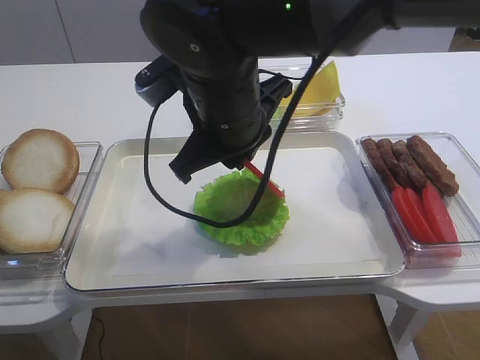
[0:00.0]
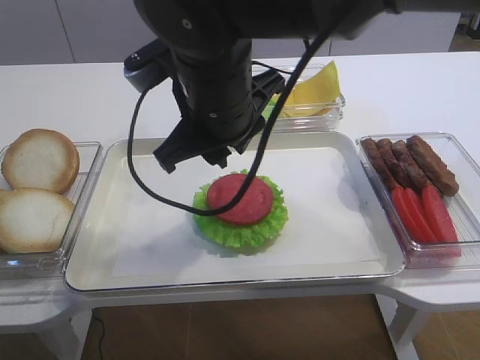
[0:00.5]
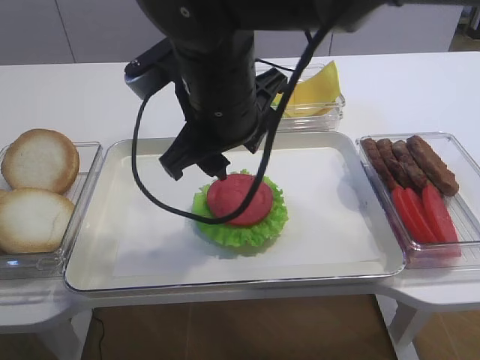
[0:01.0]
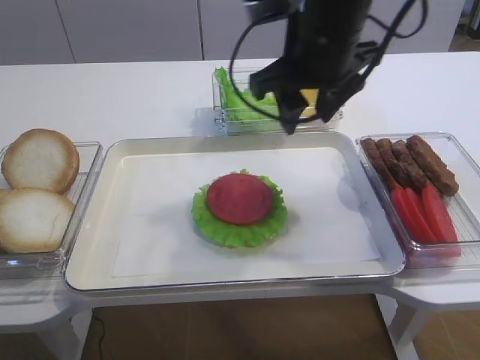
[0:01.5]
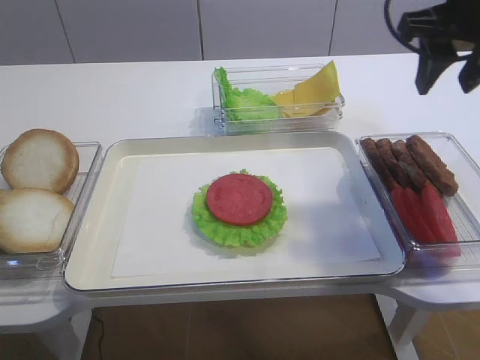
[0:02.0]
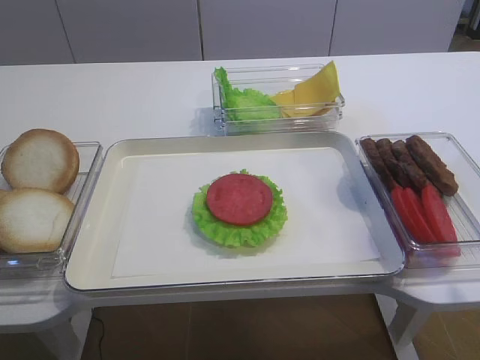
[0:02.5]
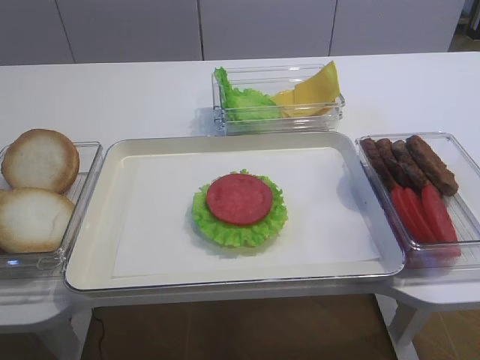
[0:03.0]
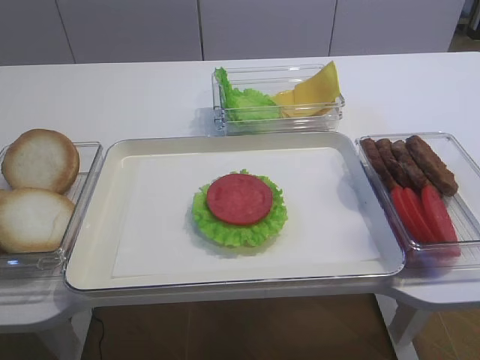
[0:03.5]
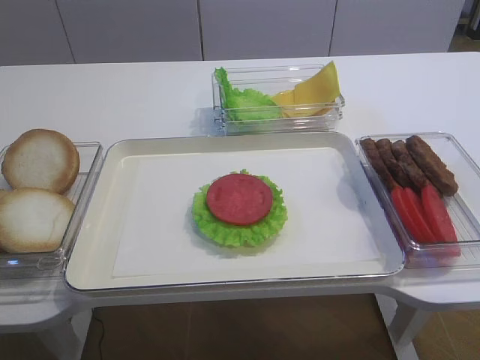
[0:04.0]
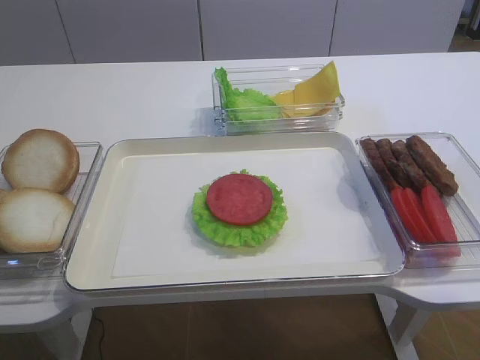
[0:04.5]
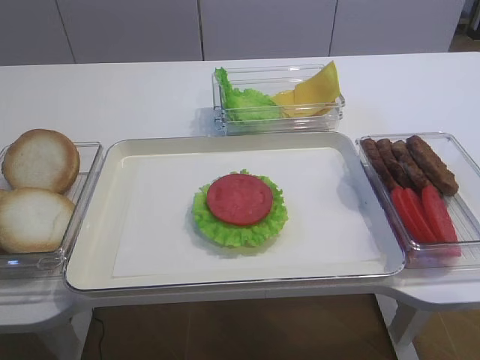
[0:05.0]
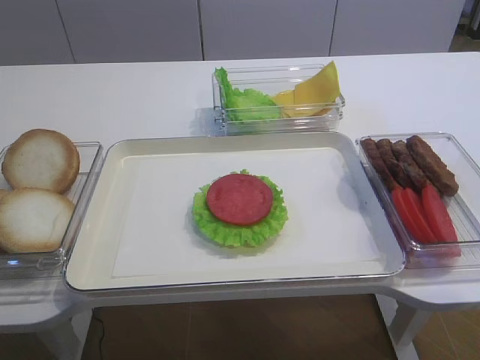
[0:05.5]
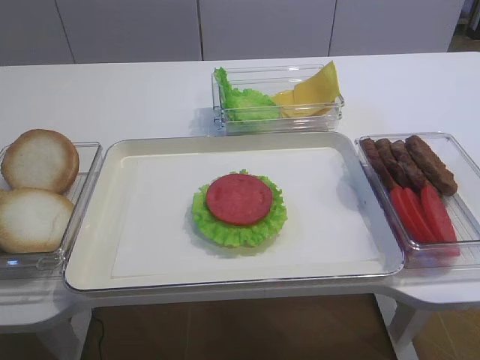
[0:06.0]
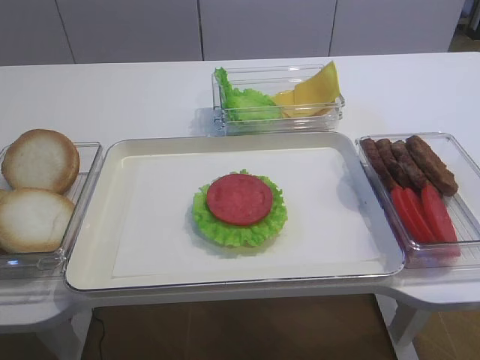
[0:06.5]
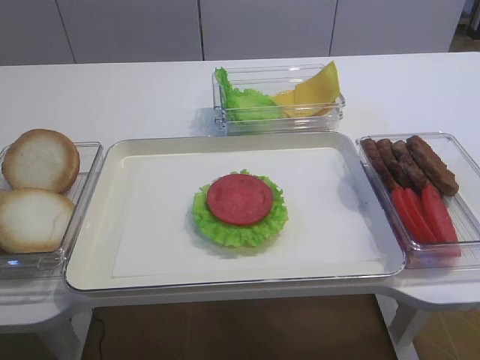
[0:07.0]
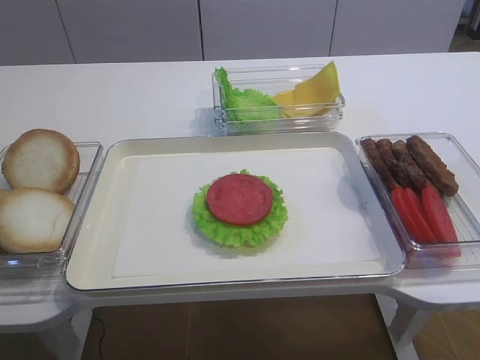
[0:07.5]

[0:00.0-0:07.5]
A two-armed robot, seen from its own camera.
0:00.0 to 0:02.0: The right gripper shifts some 25 cm to the right, and opens its fingers.
0:02.0 to 0:04.0: The right gripper heads backward, covering roughly 35 cm.

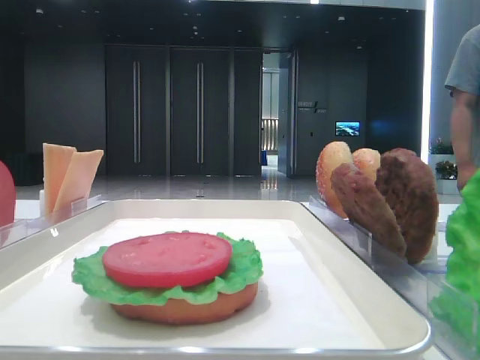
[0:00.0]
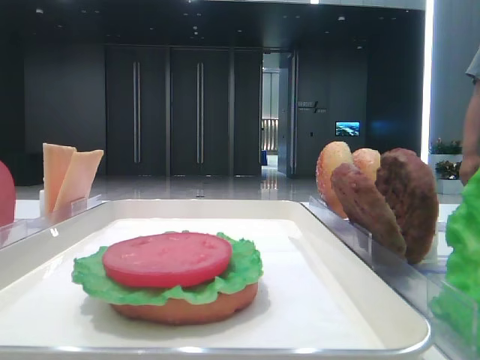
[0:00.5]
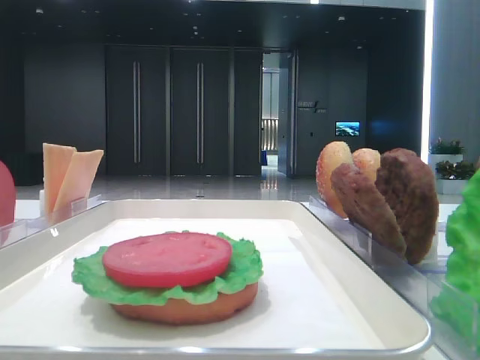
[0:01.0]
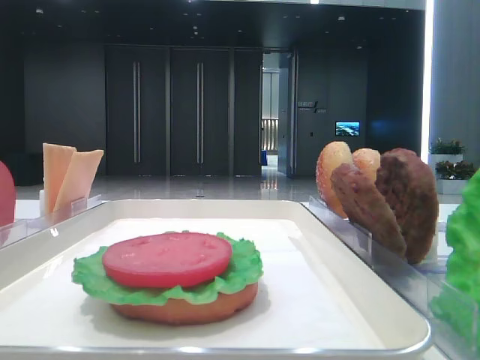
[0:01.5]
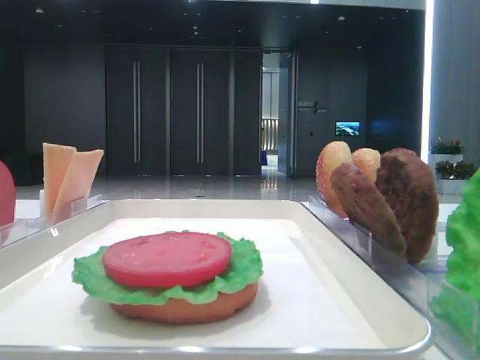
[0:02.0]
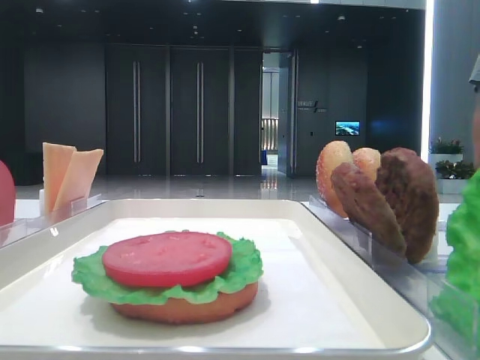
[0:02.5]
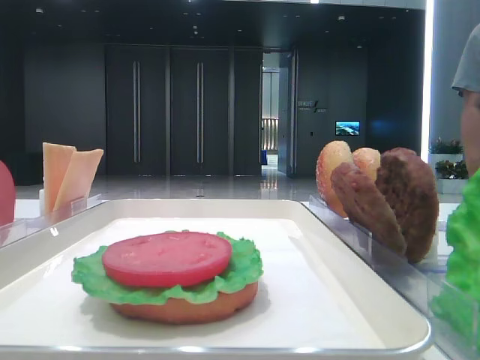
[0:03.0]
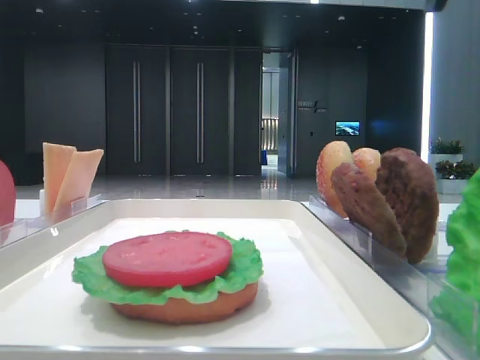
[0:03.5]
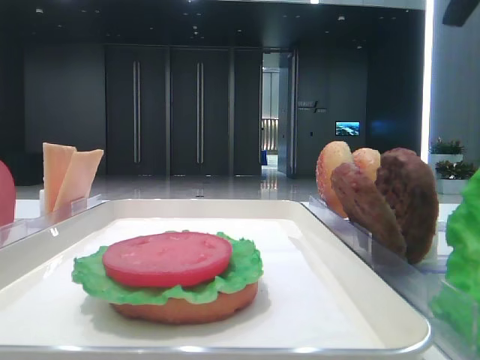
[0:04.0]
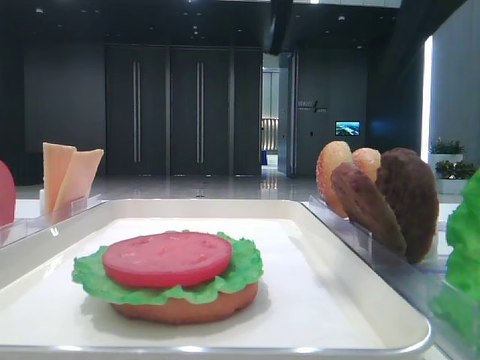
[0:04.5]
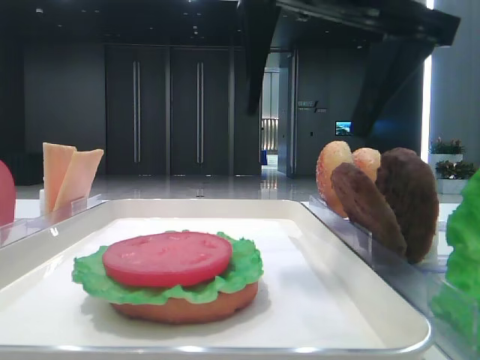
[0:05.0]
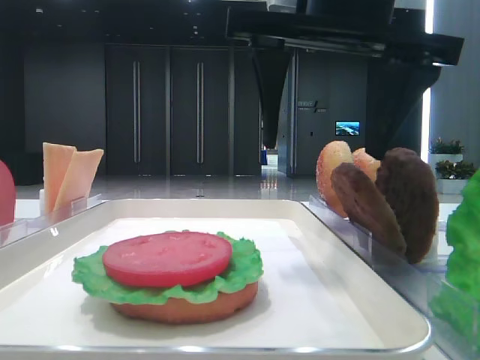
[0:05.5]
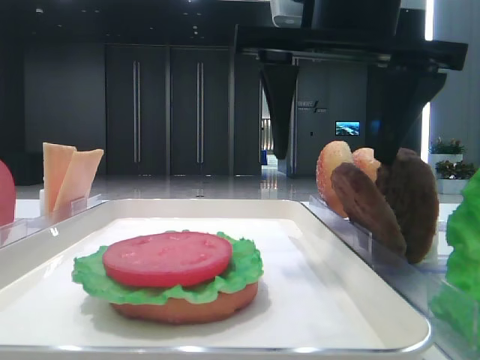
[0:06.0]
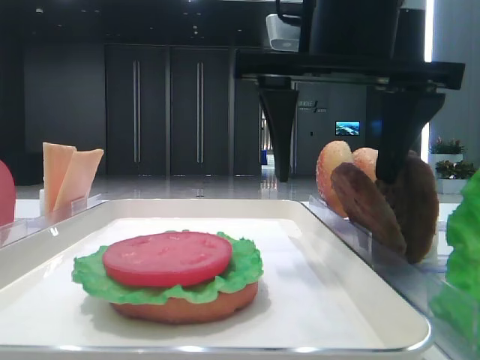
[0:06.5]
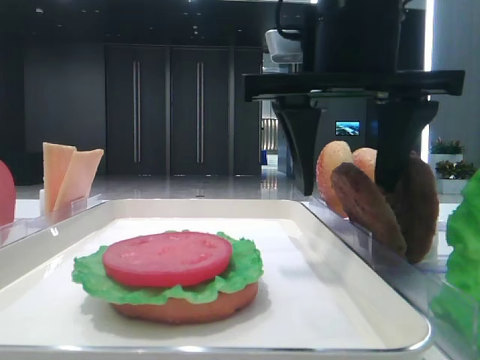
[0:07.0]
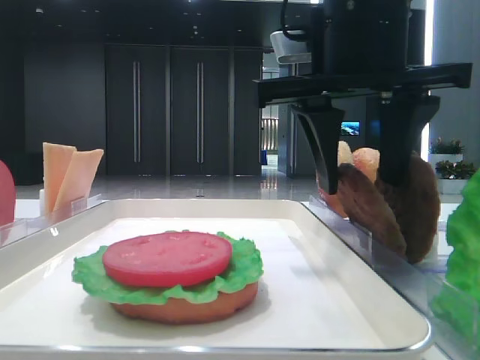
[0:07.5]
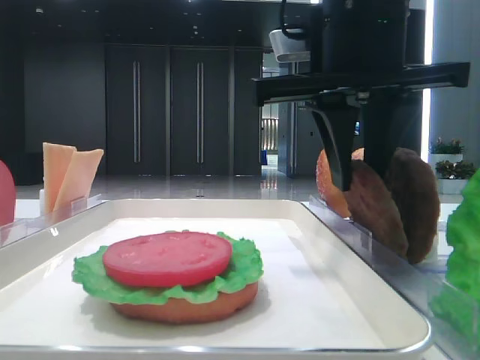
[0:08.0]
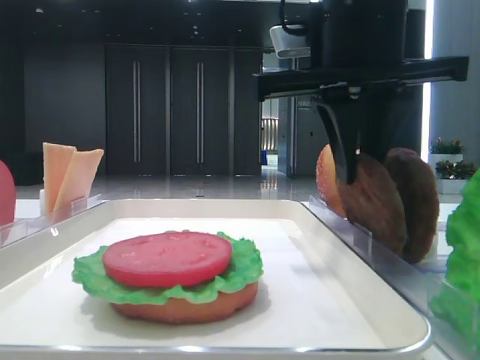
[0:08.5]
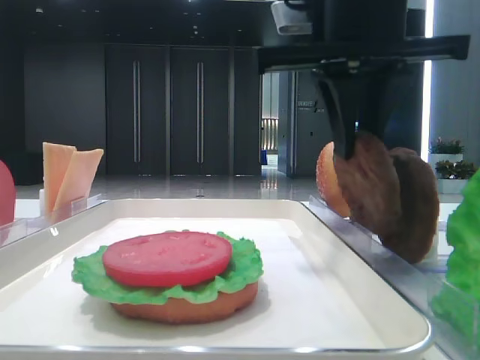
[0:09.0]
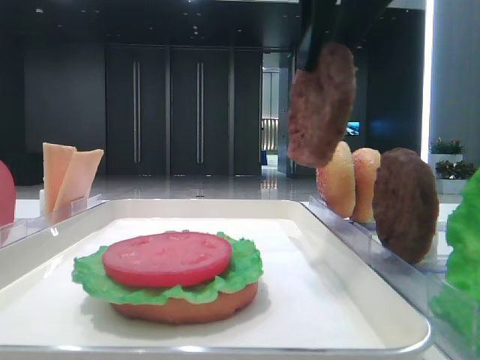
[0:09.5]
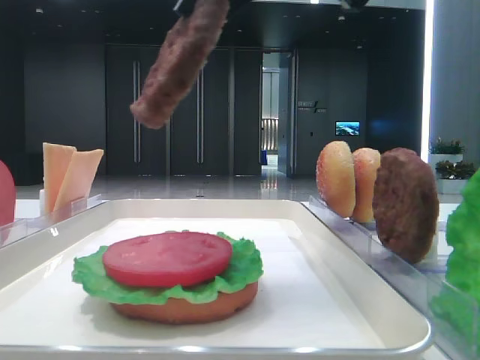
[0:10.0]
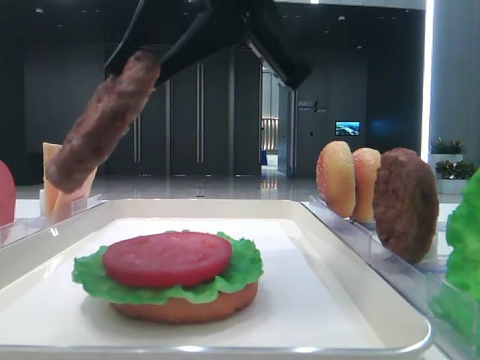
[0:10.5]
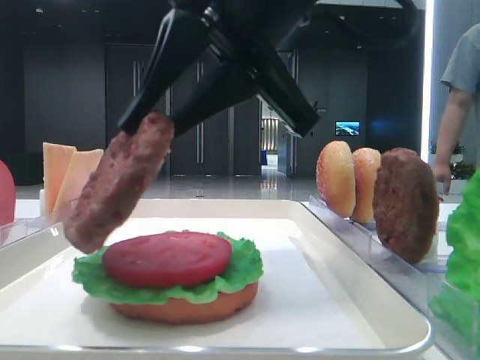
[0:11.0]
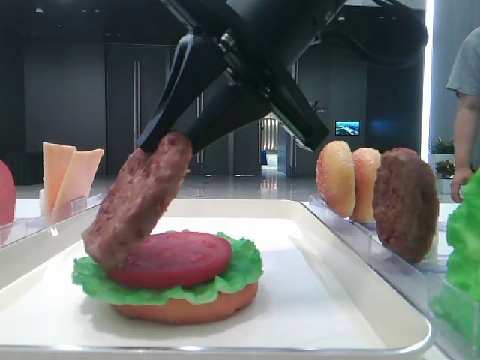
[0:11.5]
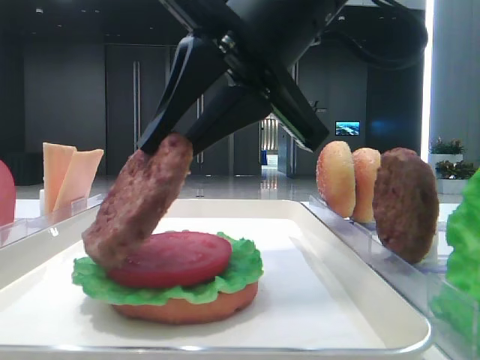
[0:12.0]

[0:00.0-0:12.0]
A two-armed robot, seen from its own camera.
Step, 0:00.0 to 0:08.0: Grab the patty with the right hand.
0:02.0 to 0:04.0: The right gripper heads to the left and forward, covering roughly 15 cm.
0:04.0 to 0:06.0: The right gripper travels downward and to the left by some 10 cm.
0:06.0 to 0:08.0: The right gripper closes.
0:08.0 to 0:10.0: The right gripper moves upward, approximately 10 cm.
0:10.0 to 0:12.0: The right gripper moves downward, some 10 cm.

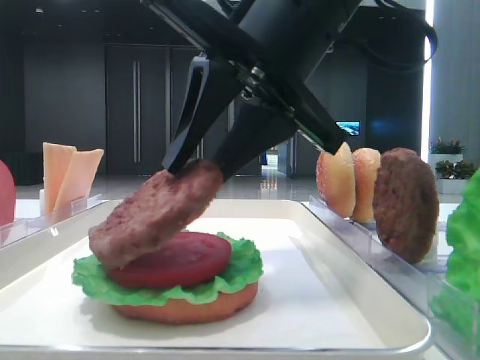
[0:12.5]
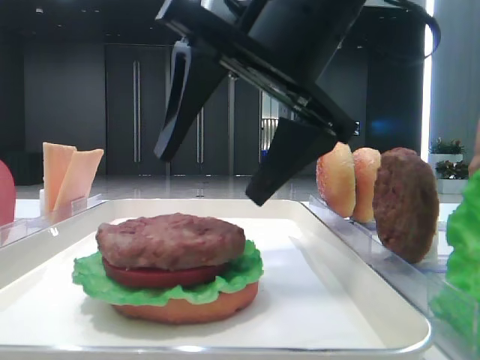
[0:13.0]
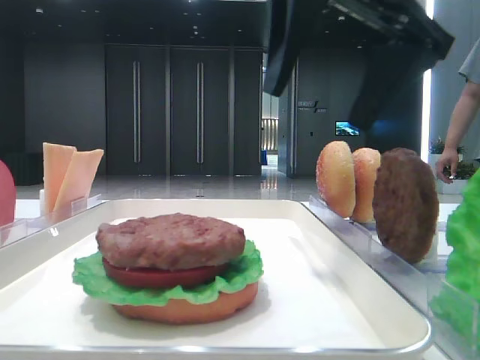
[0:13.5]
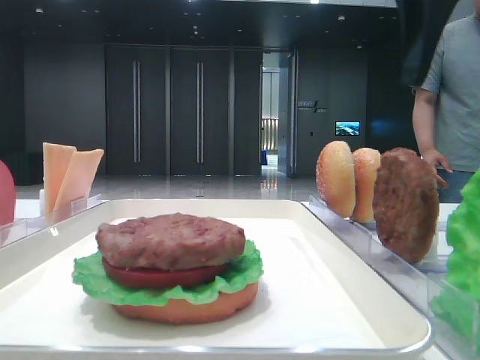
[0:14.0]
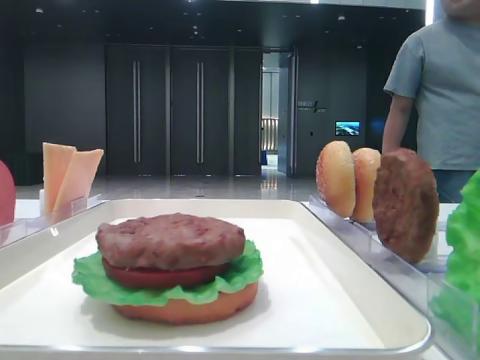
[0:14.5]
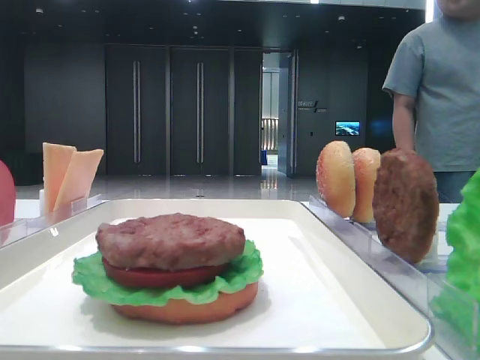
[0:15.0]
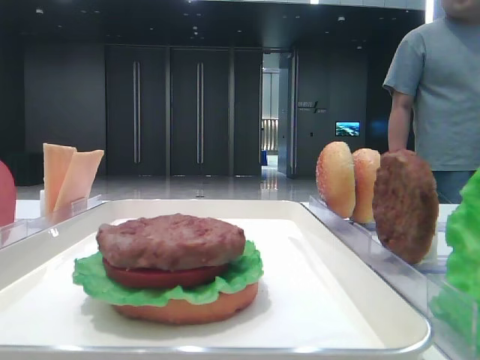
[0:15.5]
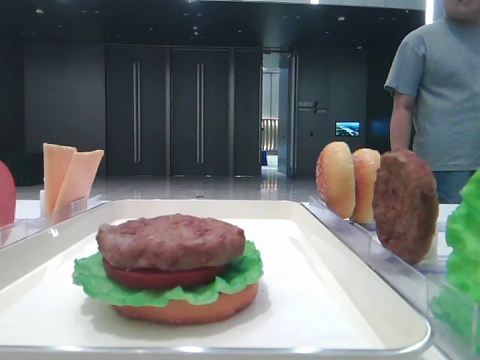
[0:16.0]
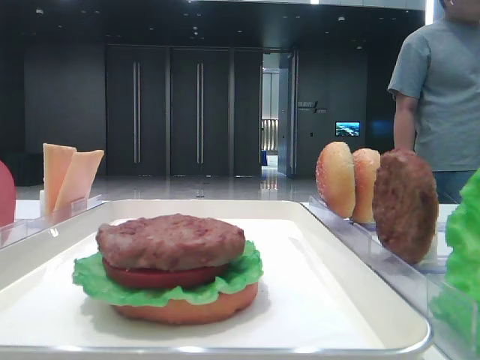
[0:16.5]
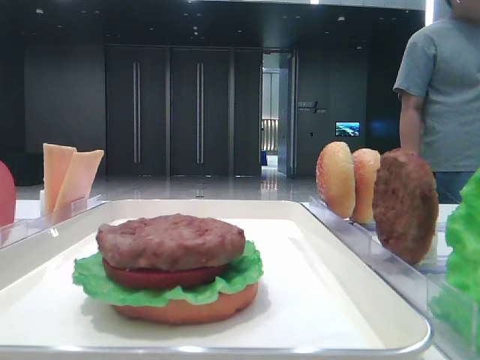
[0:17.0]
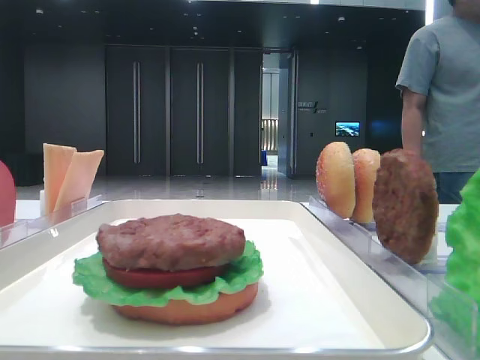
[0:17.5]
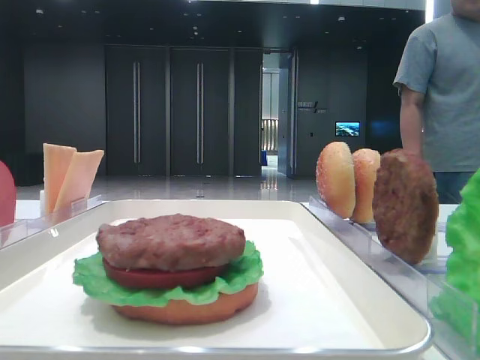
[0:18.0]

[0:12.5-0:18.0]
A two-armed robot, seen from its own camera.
0:12.5 to 0:14.5: The right gripper heads to the right, covering approximately 25 cm, and opens.
0:14.5 to 0:16.0: The right gripper moves backward, some 25 cm.
0:16.0 to 0:18.0: There are only small adjustments of the grippers.

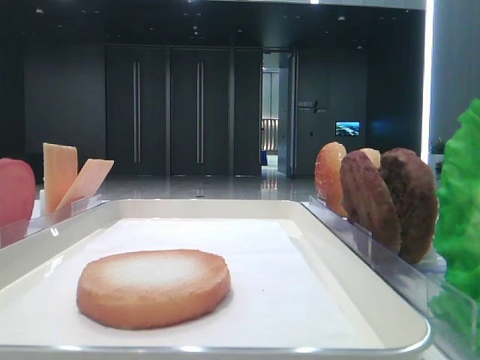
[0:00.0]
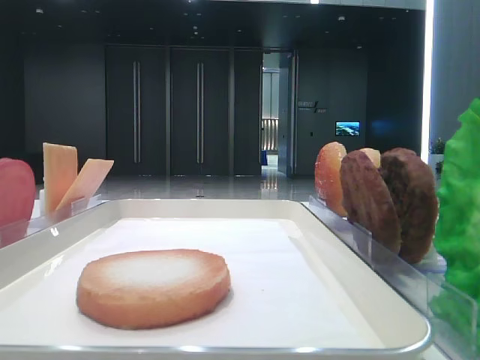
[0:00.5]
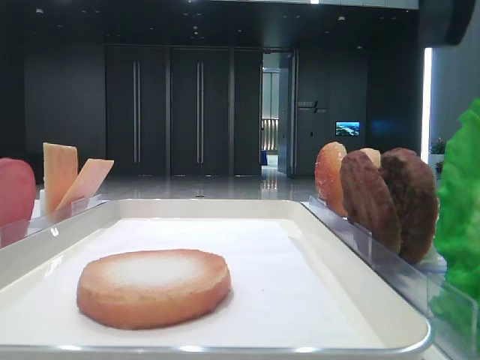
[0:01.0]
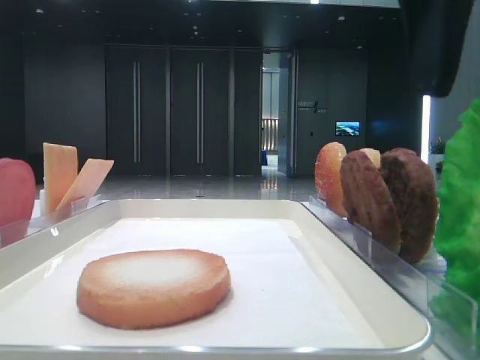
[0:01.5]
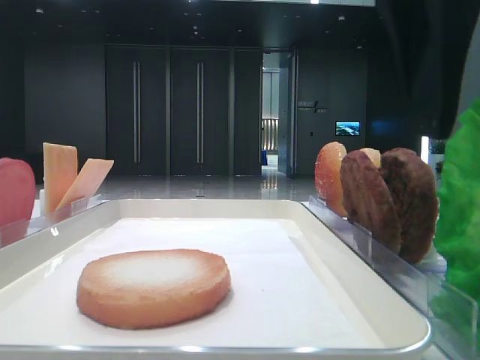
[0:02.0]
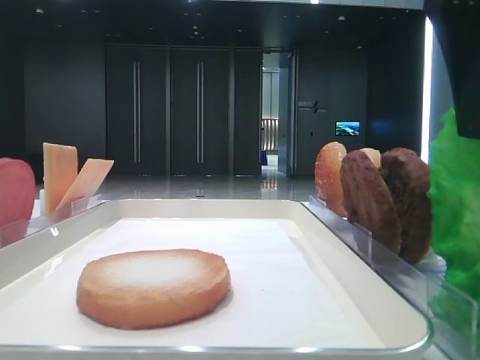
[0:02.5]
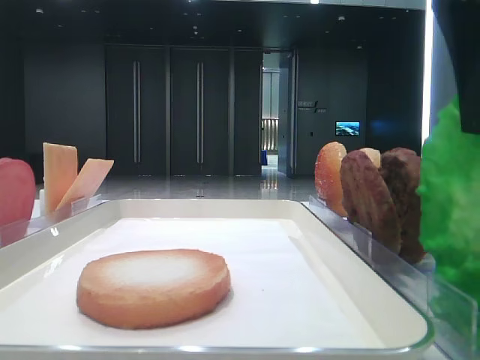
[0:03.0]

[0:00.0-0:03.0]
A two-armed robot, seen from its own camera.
Step, 0:00.0 to 0:02.5: Grab the lettuce leaf with the right hand.
0:00.0 to 0:01.5: The right gripper is displaced to the left and downward by roughly 10 cm.
0:01.5 to 0:03.0: The right gripper closes its fingers.
